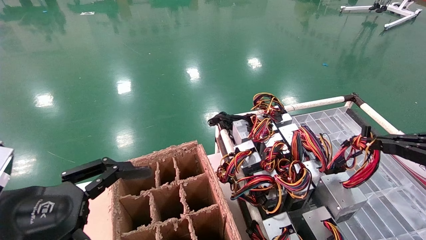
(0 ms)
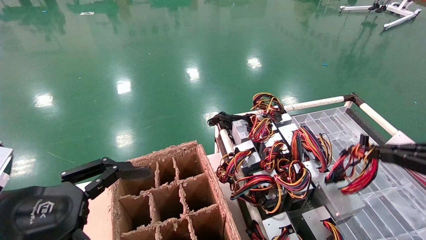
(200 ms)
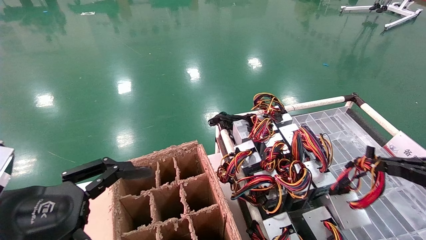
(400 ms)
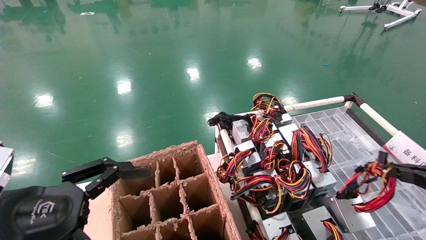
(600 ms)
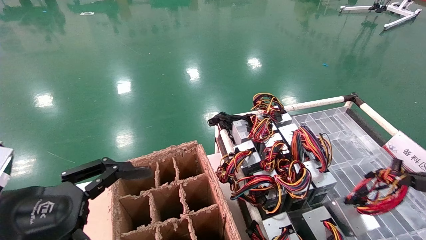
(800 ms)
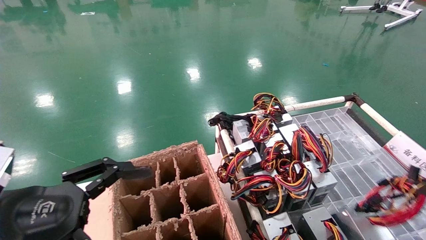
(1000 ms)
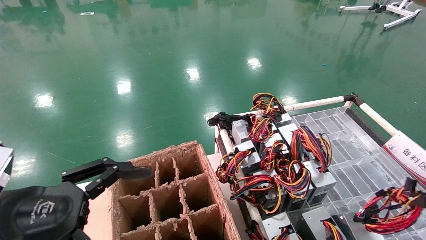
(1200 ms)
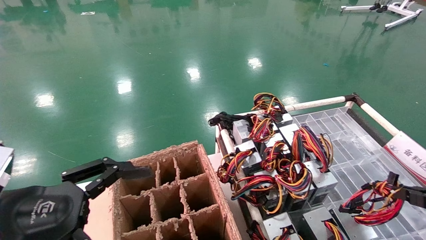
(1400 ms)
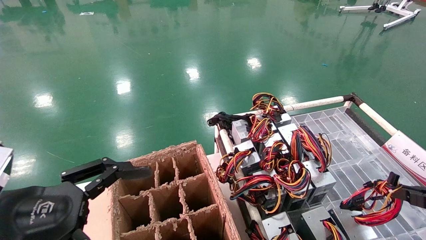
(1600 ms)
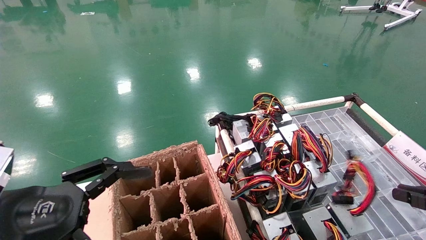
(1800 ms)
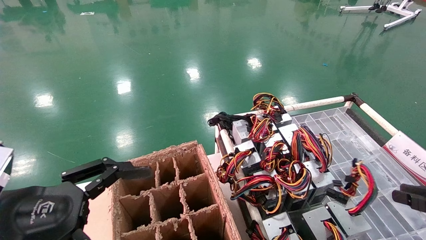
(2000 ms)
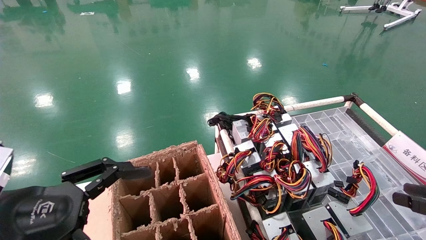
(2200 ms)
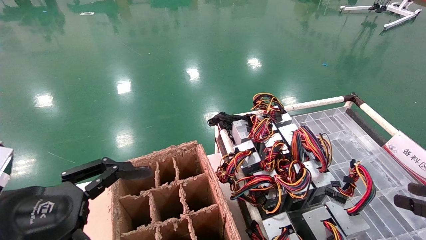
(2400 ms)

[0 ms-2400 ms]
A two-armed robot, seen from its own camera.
0 ms to 1200 ms: The right gripper goes about 10 cm downward.
1200 ms to 2400 ms: The right gripper opens its fingers.
